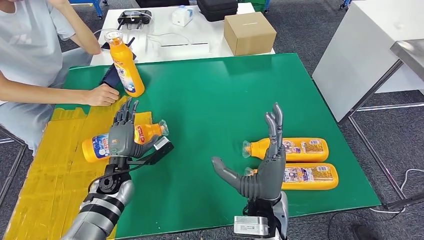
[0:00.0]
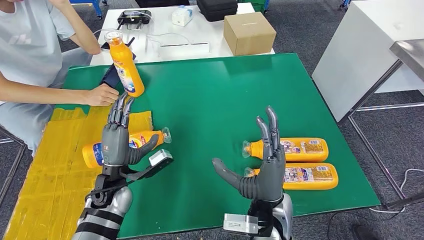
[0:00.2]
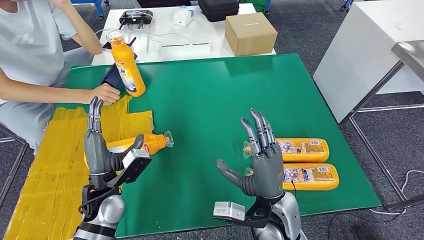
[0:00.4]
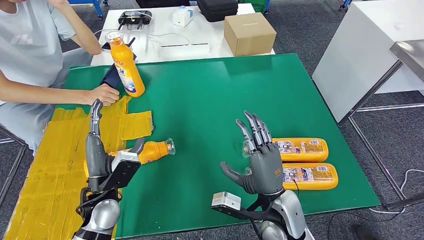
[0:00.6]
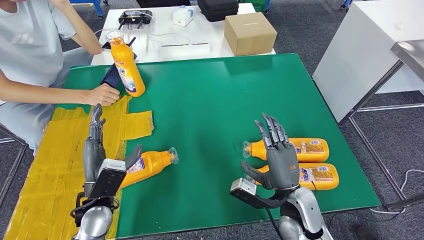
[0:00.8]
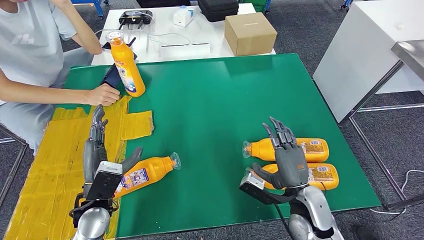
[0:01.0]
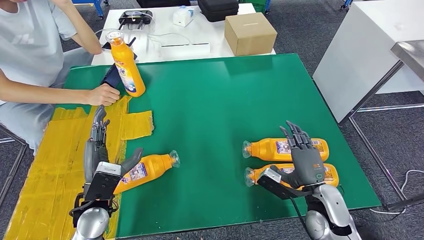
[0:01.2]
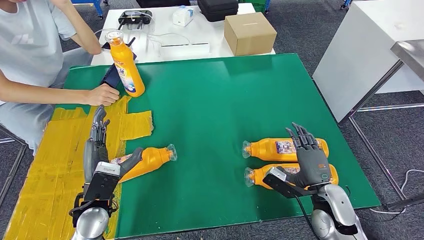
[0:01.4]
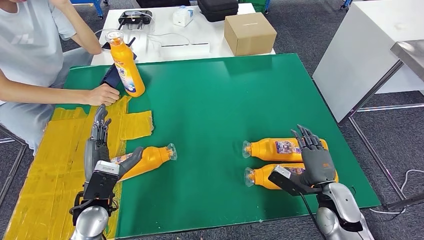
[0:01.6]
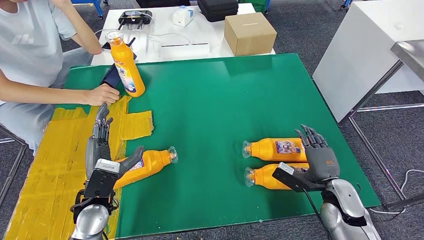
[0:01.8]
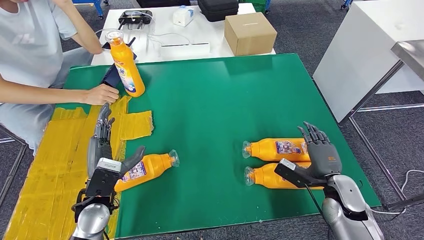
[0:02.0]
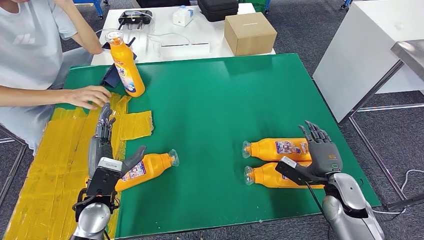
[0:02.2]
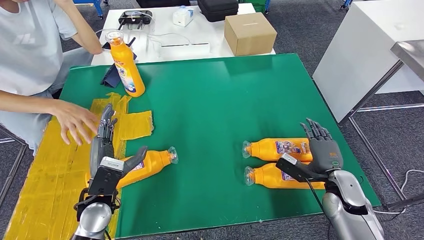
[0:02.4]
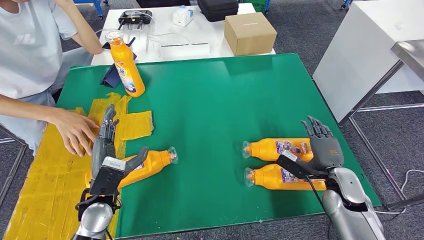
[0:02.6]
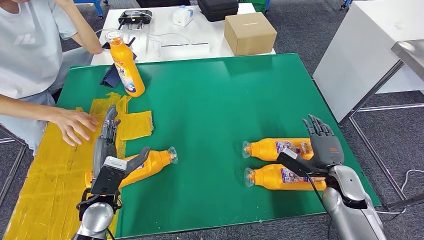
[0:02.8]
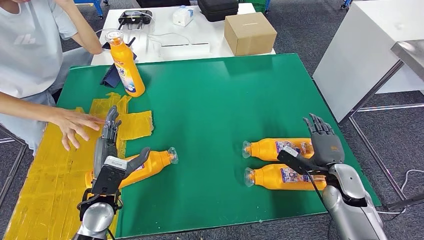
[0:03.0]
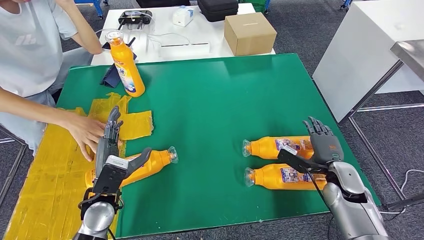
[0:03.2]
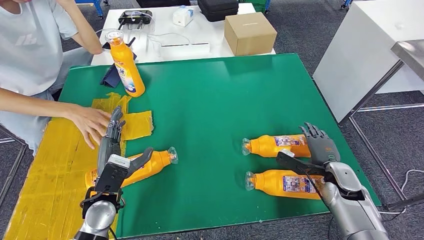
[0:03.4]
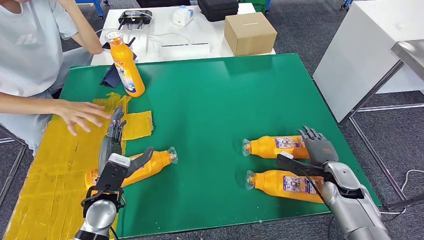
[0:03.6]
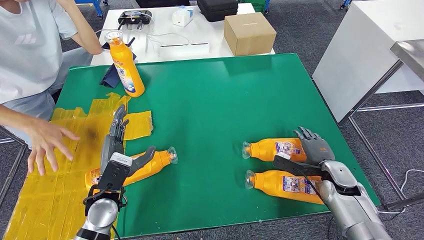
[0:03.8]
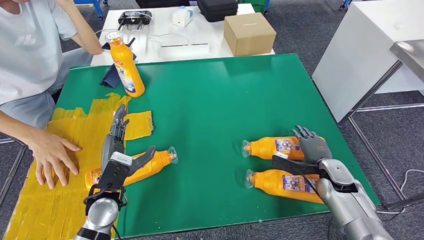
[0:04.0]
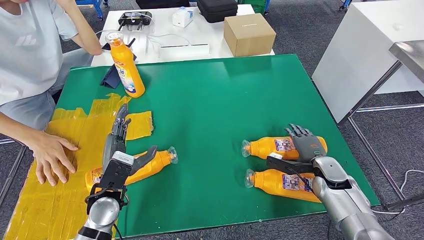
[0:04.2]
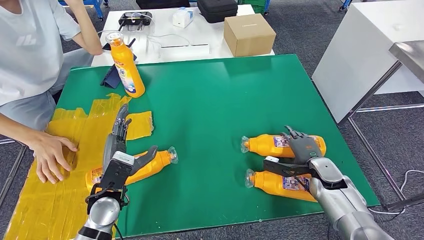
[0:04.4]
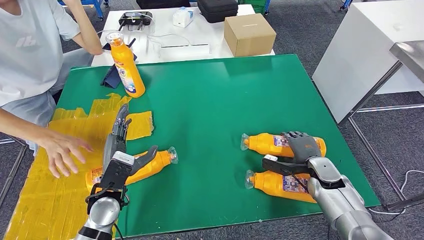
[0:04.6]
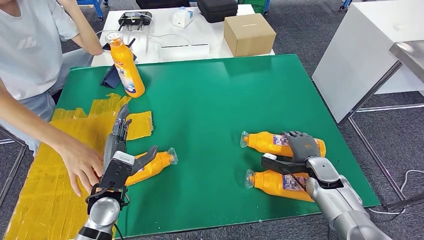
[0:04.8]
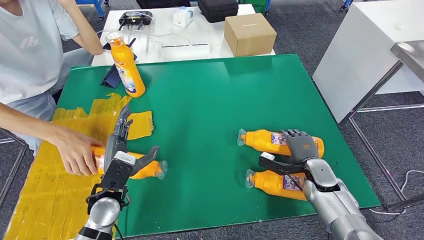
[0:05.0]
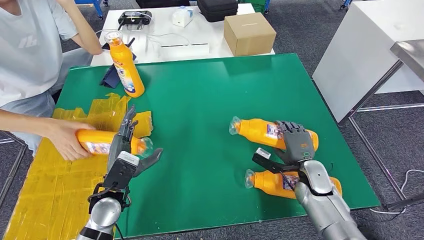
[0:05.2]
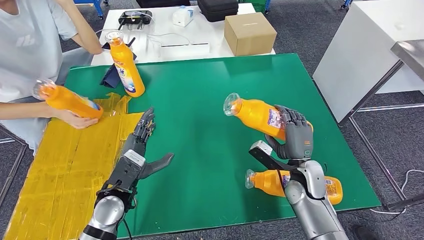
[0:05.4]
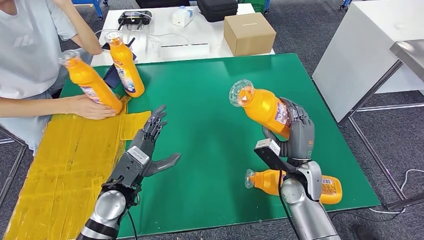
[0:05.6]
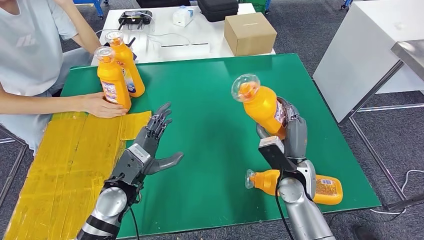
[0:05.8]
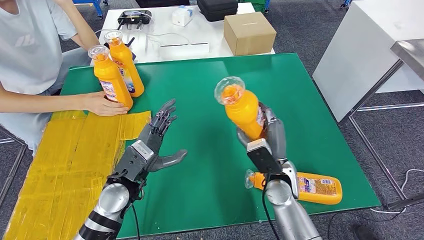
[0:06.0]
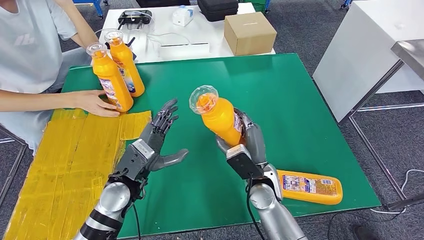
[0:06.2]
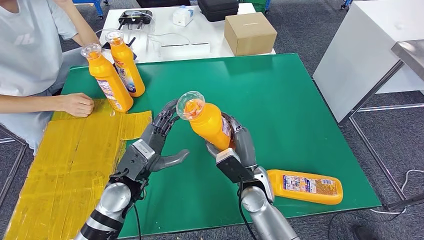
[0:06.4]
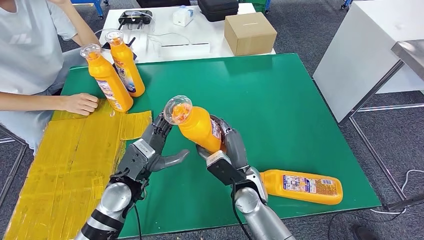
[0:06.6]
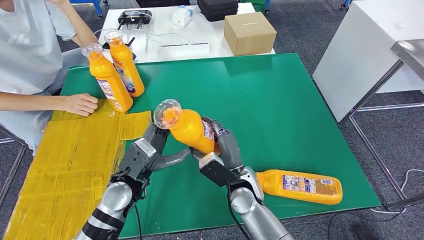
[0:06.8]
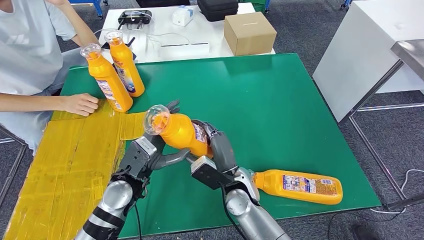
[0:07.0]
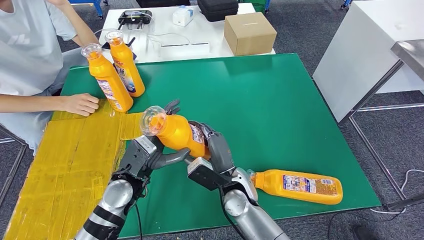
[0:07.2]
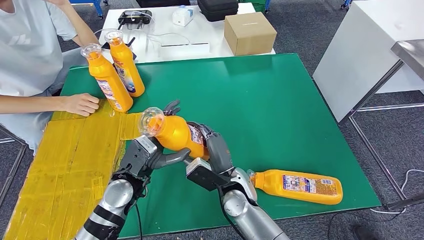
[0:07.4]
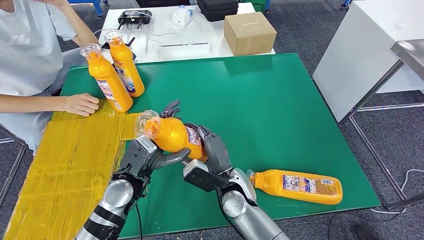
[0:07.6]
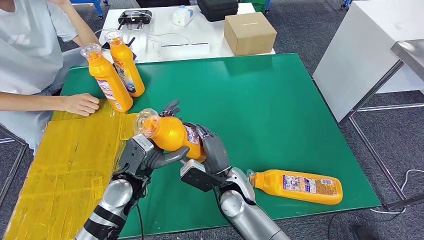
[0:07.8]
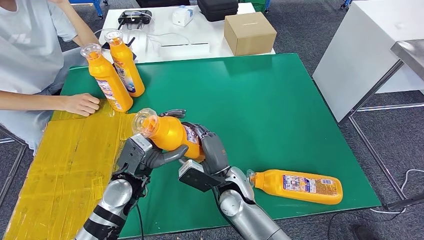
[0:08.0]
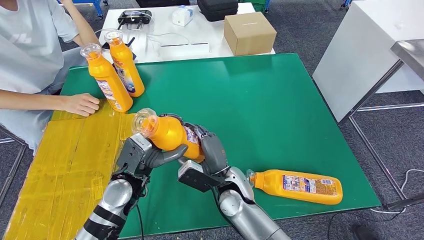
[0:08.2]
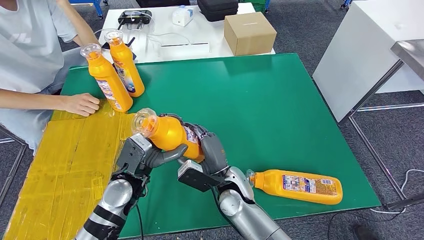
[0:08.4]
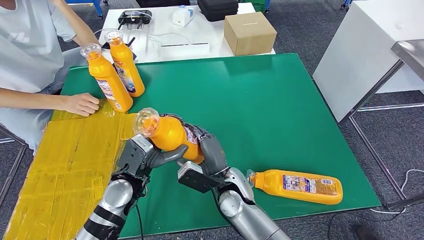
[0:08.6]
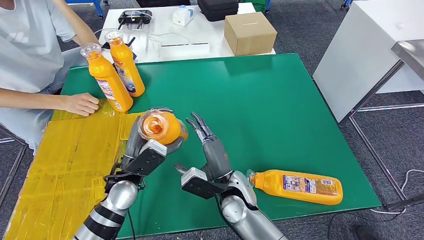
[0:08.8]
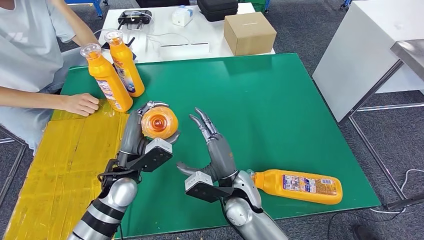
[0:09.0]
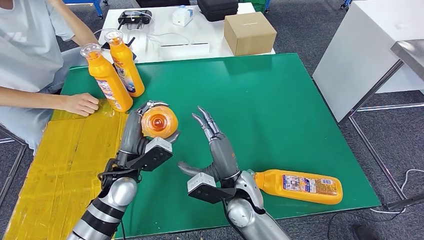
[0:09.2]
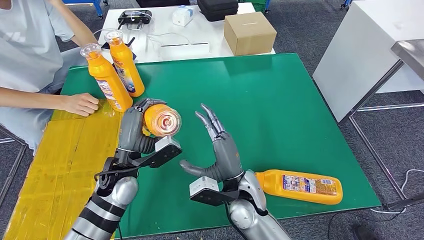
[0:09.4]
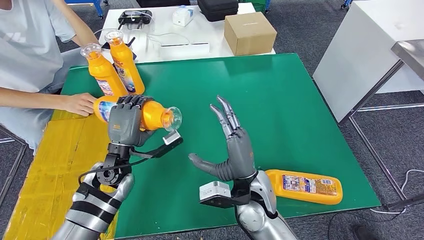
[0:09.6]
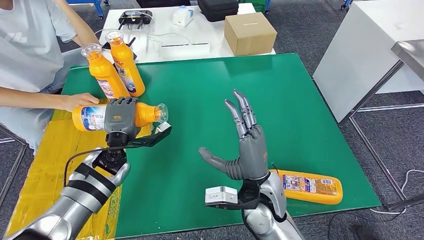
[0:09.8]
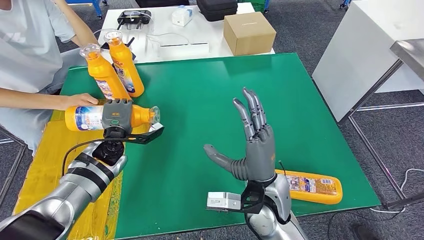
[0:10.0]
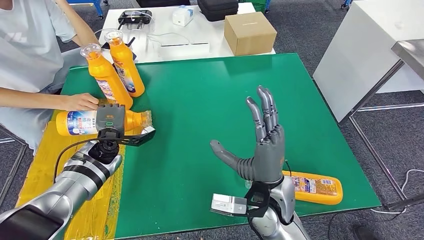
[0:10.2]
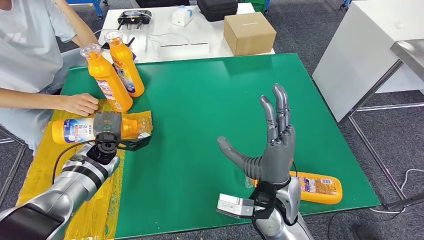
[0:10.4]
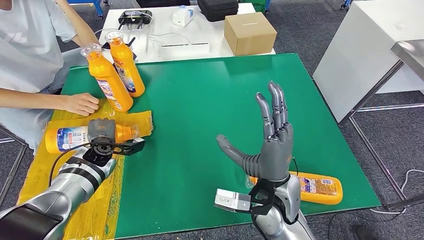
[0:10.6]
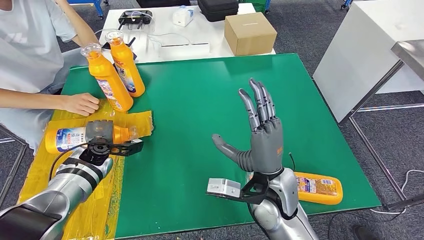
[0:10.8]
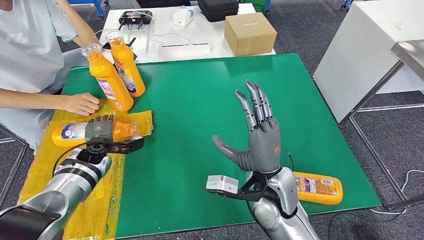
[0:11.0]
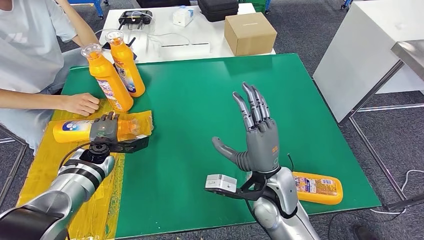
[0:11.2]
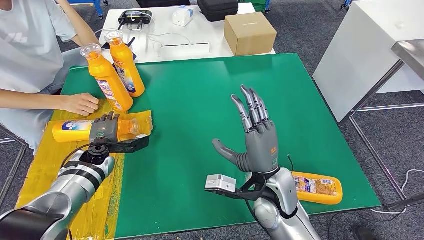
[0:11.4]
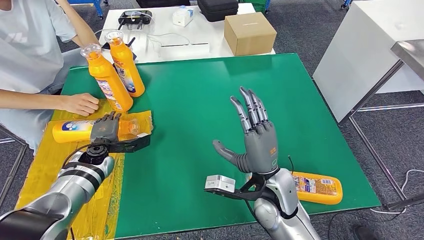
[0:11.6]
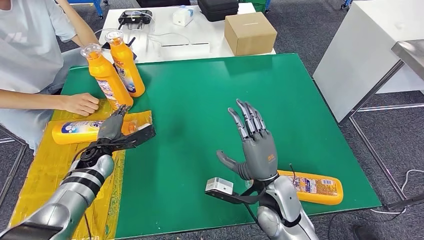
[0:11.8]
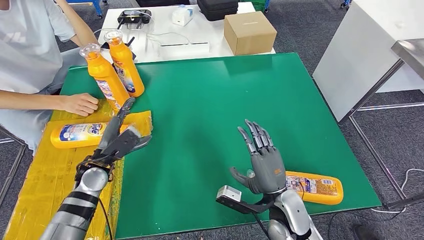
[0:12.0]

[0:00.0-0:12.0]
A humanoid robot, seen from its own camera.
Step, 0:00.6 to 0:06.4: Pick up the fast-moving consumer goods bottle from the table.
Step, 0:06.6 to 0:11.6: Flip the fast-moving consumer goods bottle to the front side.
0:00.0 to 0:01.6: The right hand moves to the right and downward, some 20 cm; the left hand heads backward and upward, covering some 10 cm.
0:01.6 to 0:03.0: The right hand shifts roughly 5 cm forward.
0:03.0 to 0:04.4: The right hand changes place by some 5 cm.
0:06.0 to 0:07.6: The right hand moves to the left, some 10 cm.
0:09.0 to 0:10.4: The right hand shifts approximately 10 cm upward and to the right; the left hand travels forward, to the left and downward by roughly 15 cm.
0:10.4 to 0:12.0: The left hand moves backward, roughly 5 cm; the right hand is displaced downward by some 10 cm.

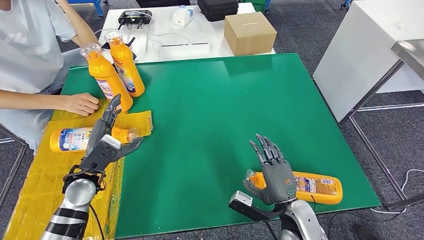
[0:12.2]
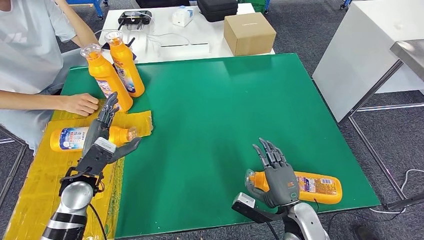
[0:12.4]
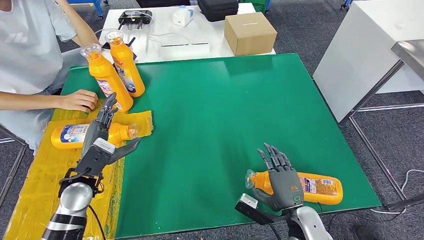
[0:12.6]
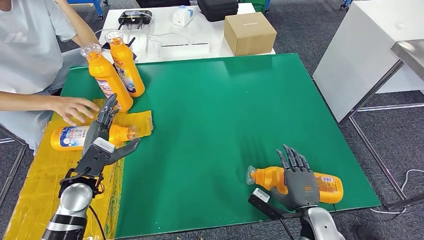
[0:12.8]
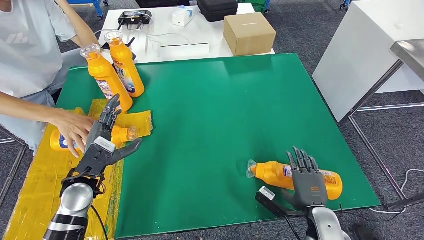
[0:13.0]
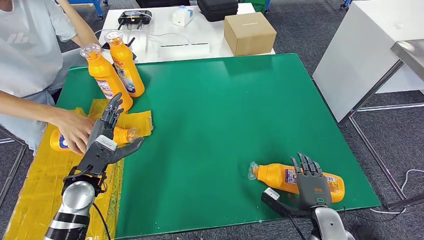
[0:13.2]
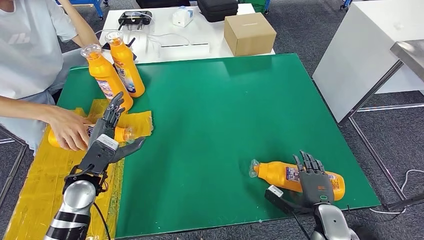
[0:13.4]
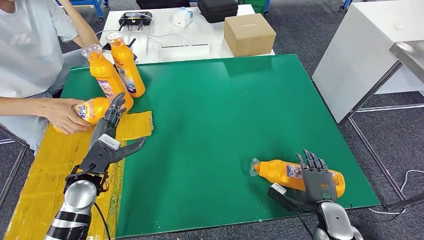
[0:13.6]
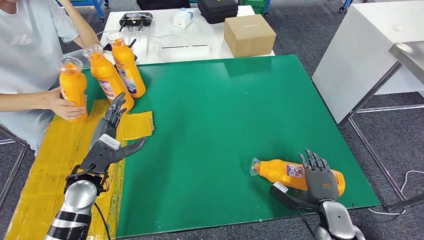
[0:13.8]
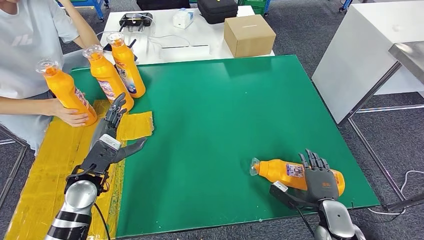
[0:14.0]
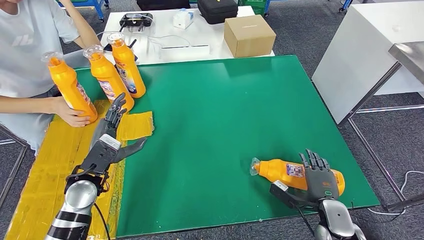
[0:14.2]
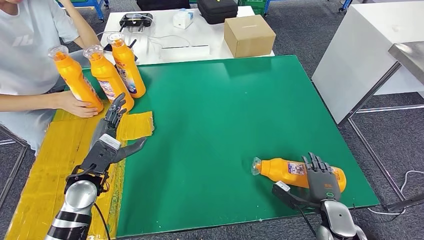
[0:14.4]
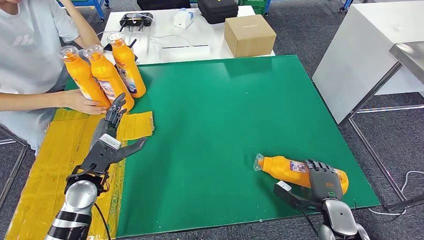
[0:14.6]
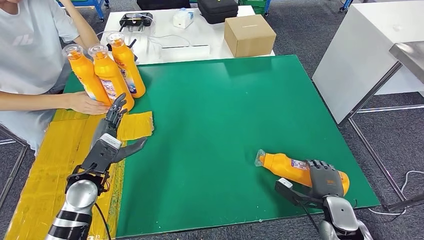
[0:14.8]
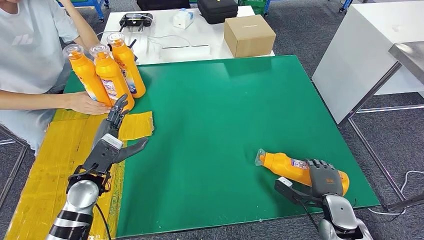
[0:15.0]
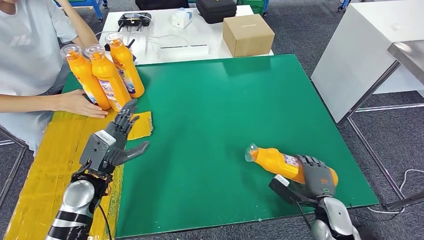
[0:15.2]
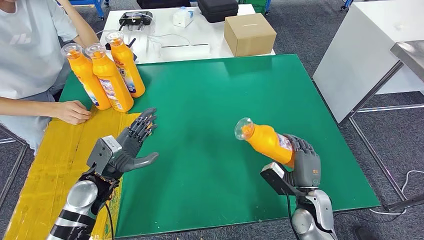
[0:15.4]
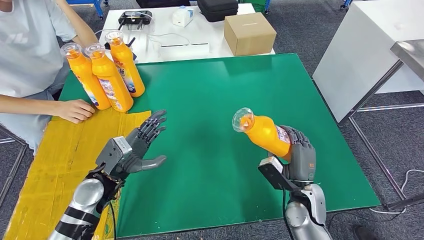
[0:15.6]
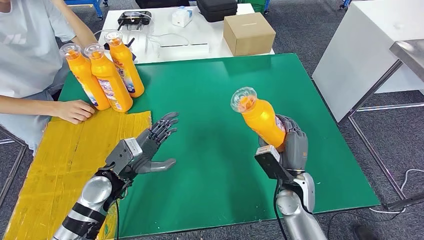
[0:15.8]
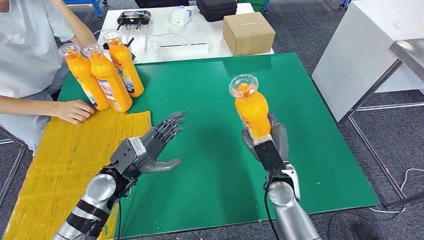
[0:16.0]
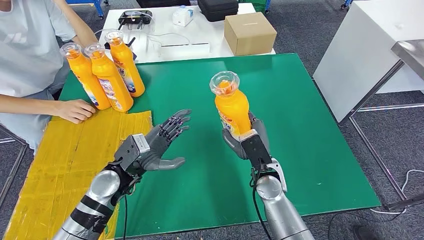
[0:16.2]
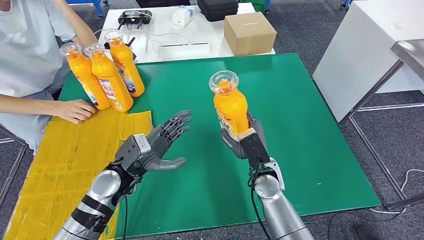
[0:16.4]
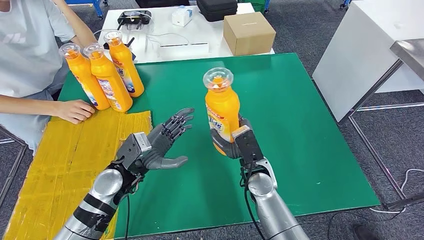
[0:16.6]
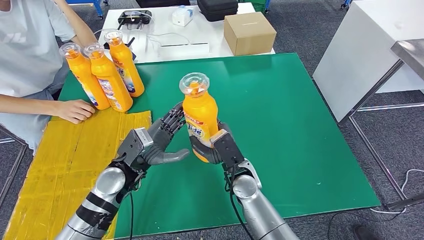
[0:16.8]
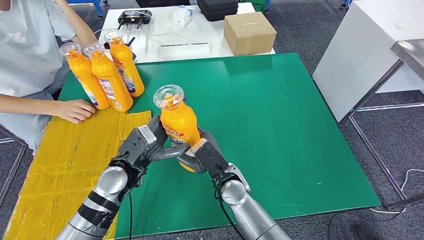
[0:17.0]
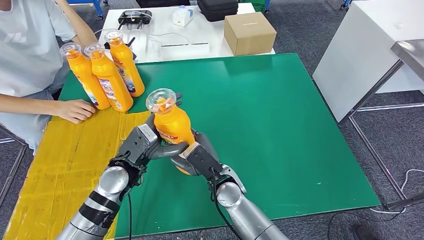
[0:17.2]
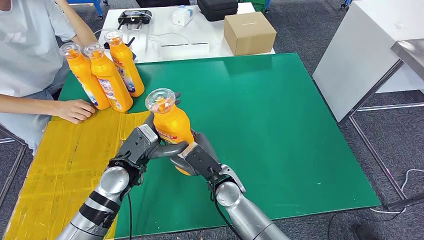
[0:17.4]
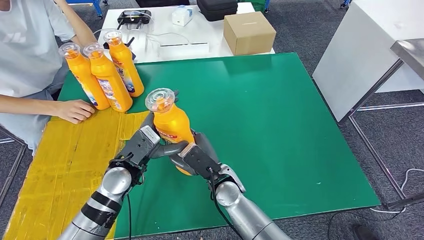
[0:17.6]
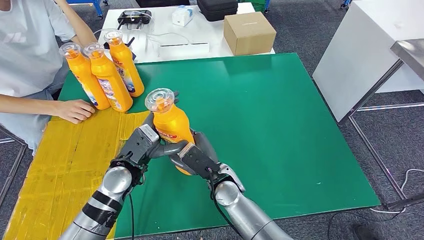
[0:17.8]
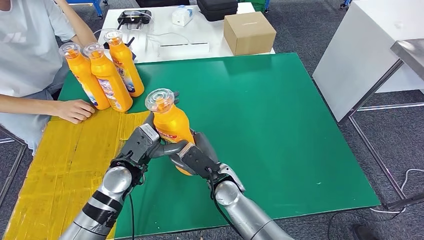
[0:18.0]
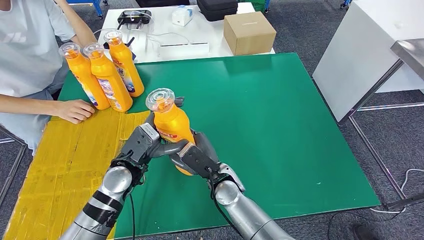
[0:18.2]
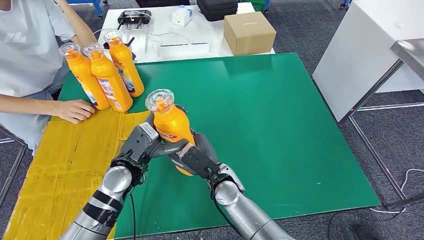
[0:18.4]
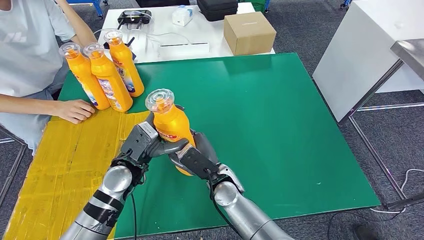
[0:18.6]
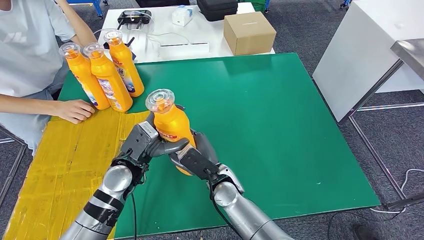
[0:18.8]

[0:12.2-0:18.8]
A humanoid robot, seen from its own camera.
Step, 0:12.2 to 0:17.8: Pick up the fast-moving consumer goods bottle from the table.
0:13.8 to 0:15.4: The right hand moves to the left, about 5 cm.
0:17.2 to 0:18.8: The hands stay close to where they were, moving slightly.
